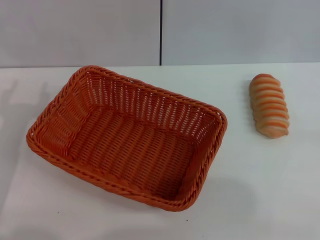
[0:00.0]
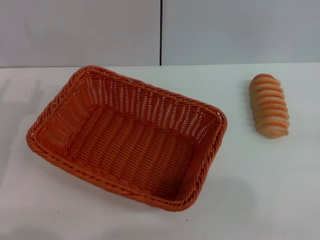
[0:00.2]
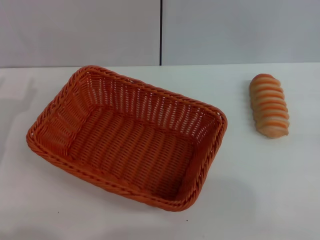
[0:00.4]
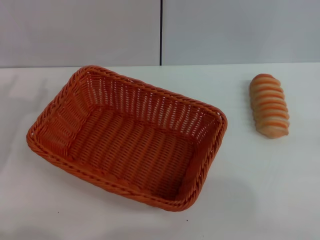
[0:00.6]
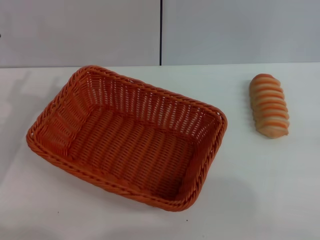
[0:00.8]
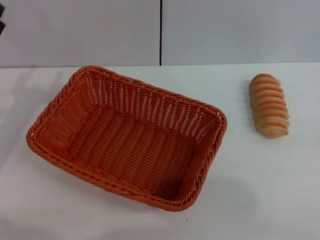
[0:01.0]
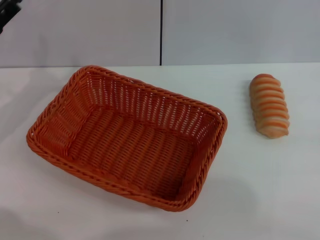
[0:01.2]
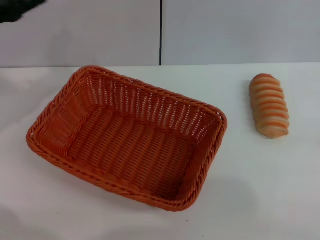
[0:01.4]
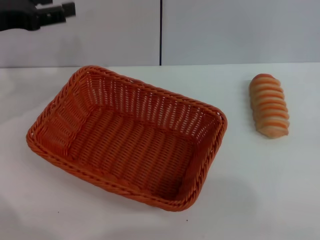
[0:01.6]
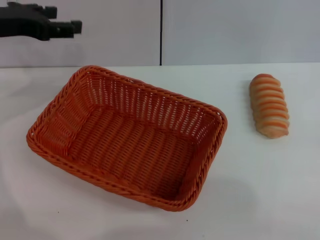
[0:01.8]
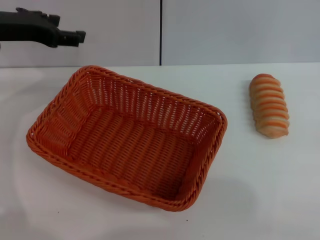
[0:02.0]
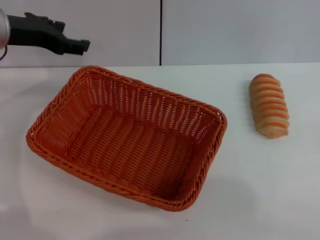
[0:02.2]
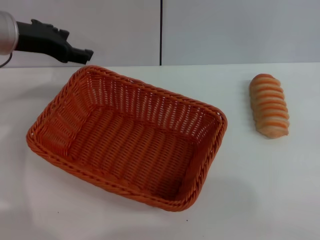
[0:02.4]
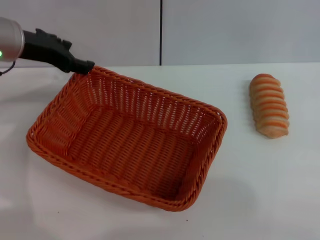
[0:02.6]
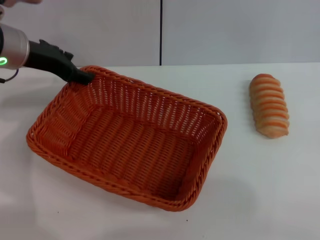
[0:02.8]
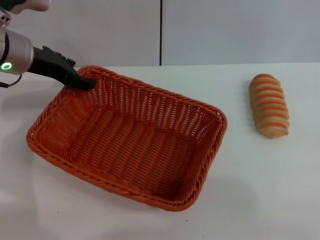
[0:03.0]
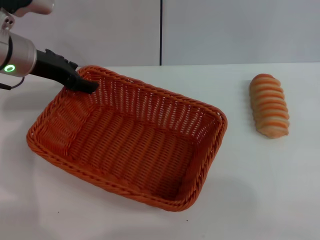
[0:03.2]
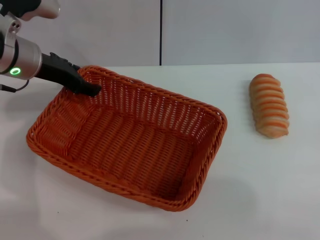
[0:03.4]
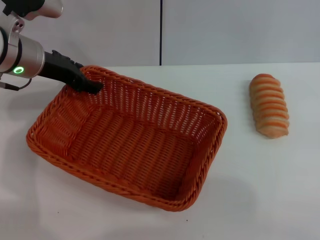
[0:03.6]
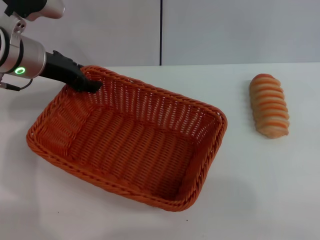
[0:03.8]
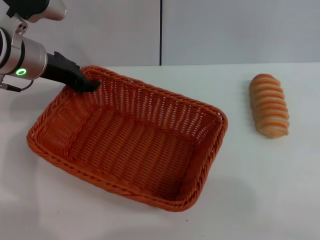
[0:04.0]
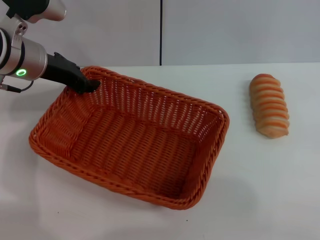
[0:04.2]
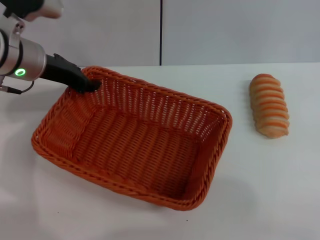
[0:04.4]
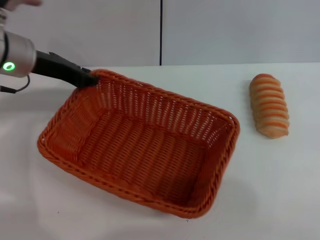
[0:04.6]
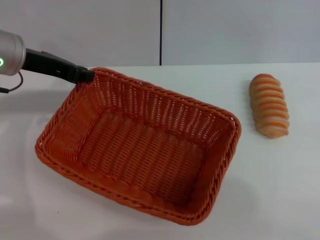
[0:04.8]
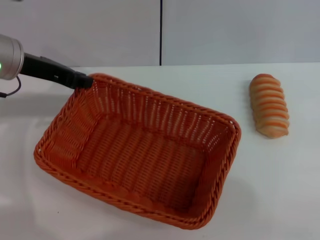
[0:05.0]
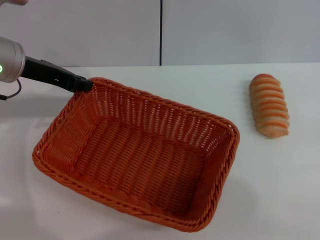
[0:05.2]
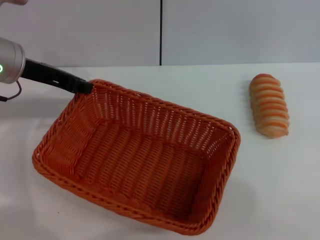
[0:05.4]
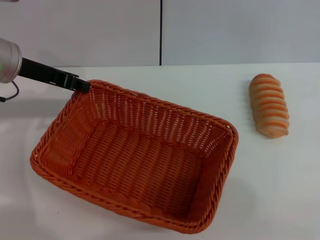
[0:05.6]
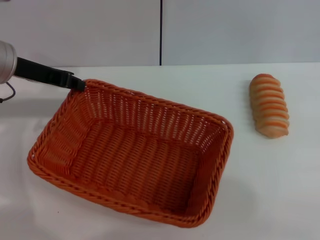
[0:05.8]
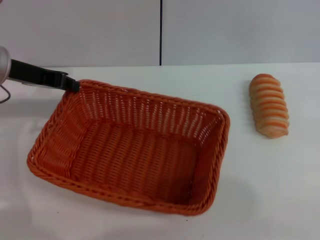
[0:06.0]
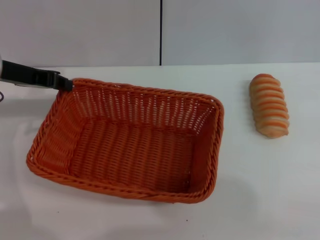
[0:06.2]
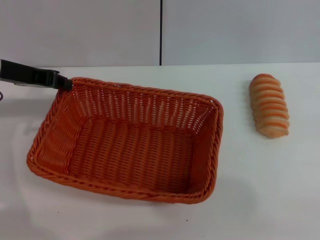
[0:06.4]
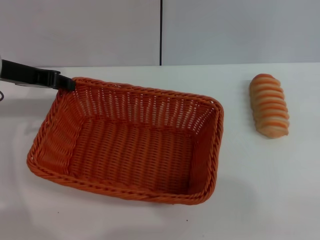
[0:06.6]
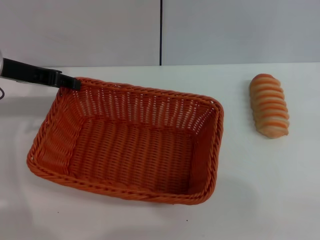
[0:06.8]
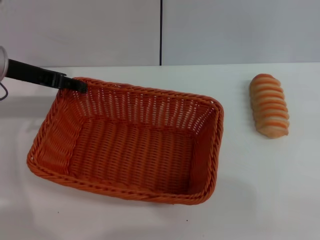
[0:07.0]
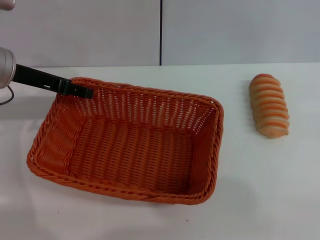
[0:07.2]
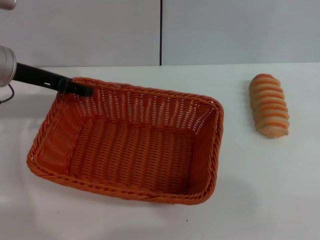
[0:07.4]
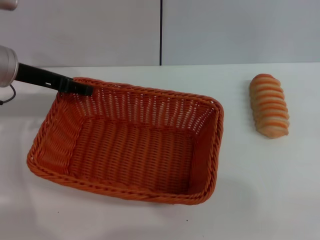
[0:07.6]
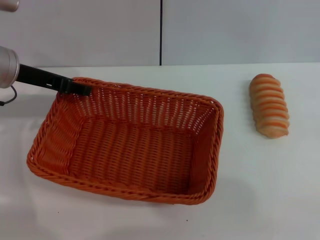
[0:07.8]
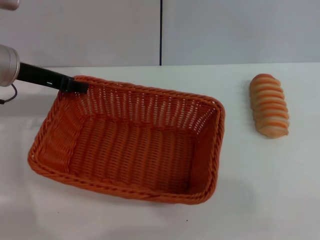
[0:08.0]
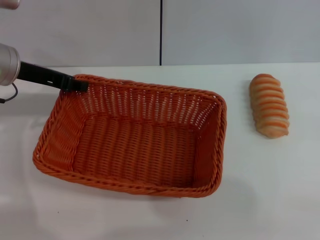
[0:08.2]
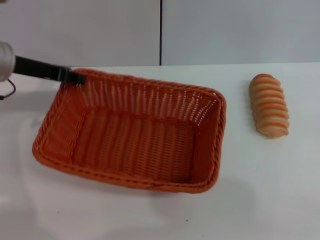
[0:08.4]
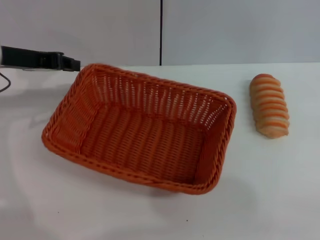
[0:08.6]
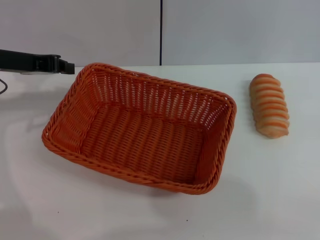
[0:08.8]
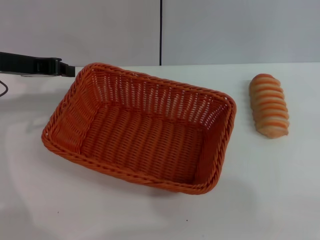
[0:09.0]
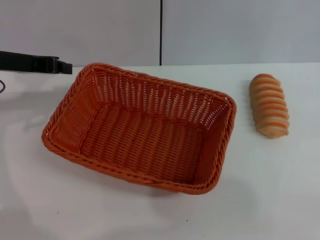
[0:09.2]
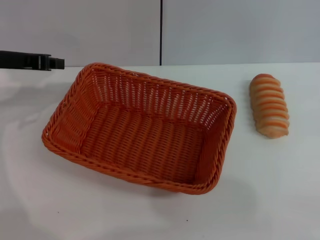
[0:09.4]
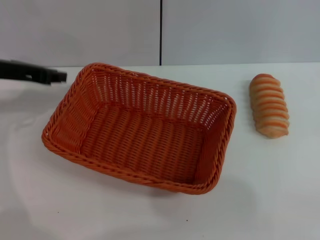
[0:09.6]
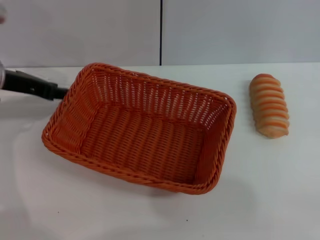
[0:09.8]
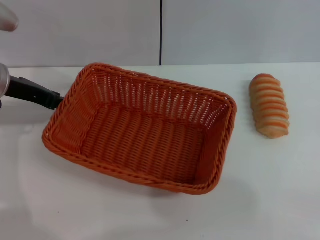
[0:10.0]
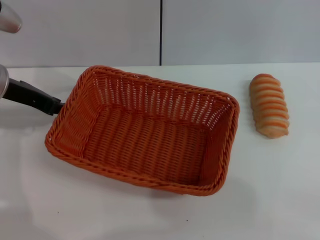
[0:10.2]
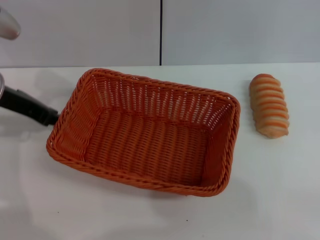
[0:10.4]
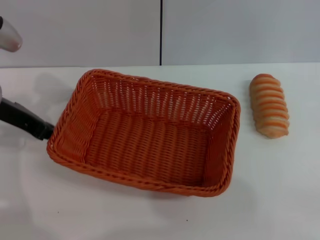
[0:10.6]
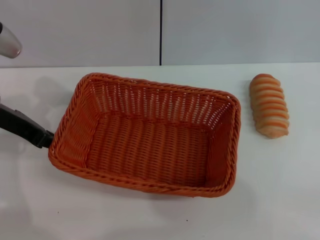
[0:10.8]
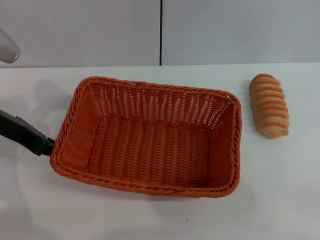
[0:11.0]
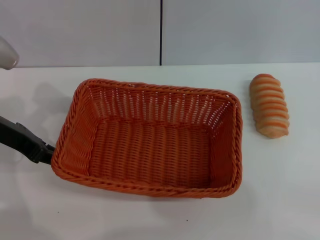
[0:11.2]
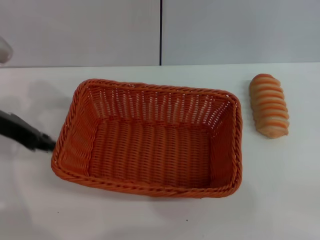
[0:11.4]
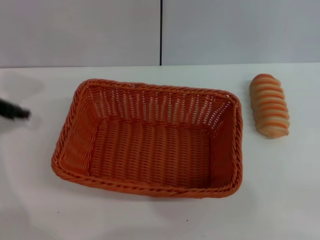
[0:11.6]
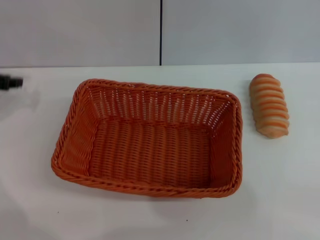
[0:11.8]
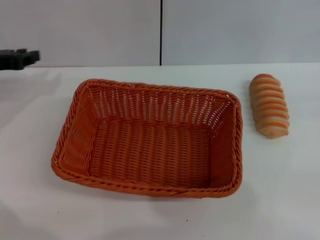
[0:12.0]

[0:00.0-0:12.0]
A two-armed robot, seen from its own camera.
Step, 0:00.0 to 0:11.2: Move the light basket to the center of view with the left gripper.
0:00.0 to 0:01.6: The left gripper goes some 20 cm upward and forward.
0:01.6 to 0:03.0: The left gripper shifts roughly 5 cm to the right.
0:03.0 to 0:04.4: The left gripper closes up.
0:04.4 to 0:06.0: The left gripper shifts by approximately 5 cm.
0:06.0 to 0:07.6: The left gripper opens up.
0:07.6 to 0:09.0: The left gripper closes up.
0:10.4 to 0:12.0: The left gripper goes some 5 cm to the left.

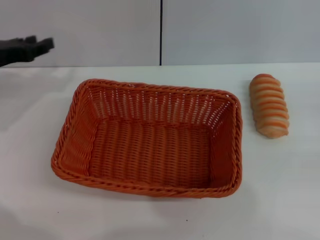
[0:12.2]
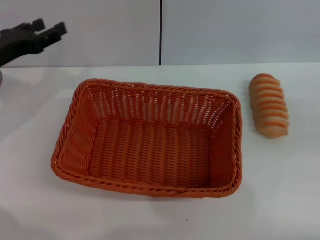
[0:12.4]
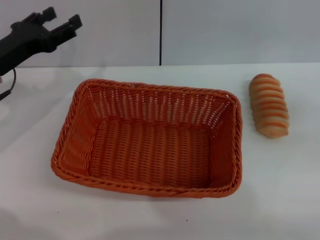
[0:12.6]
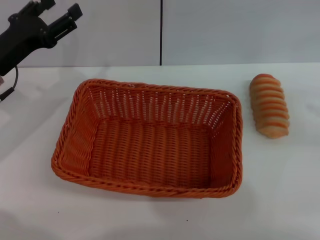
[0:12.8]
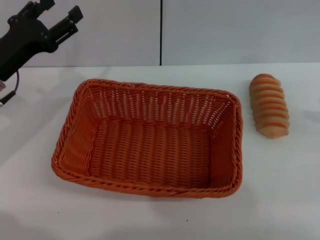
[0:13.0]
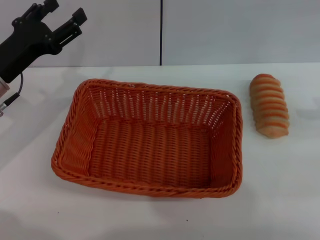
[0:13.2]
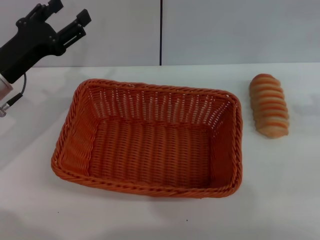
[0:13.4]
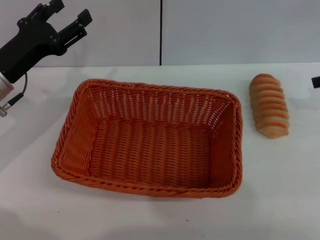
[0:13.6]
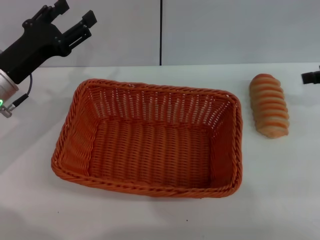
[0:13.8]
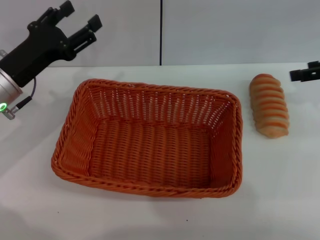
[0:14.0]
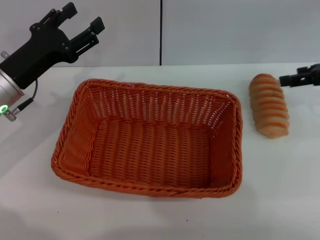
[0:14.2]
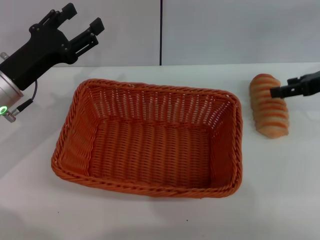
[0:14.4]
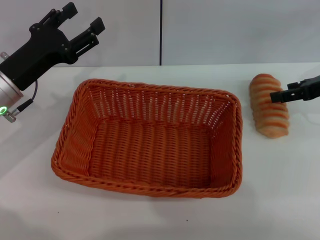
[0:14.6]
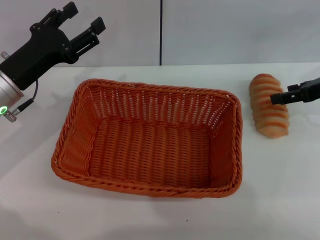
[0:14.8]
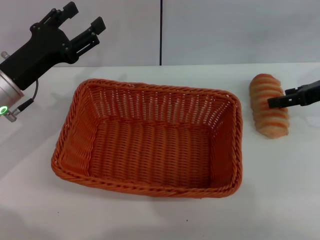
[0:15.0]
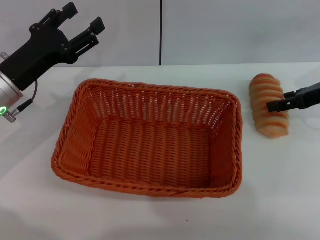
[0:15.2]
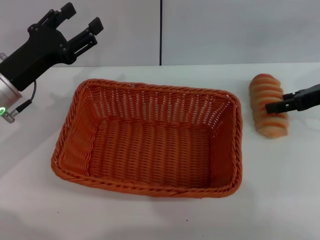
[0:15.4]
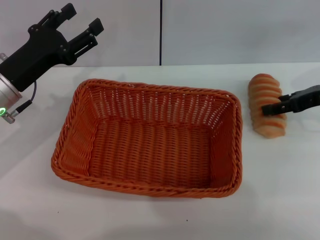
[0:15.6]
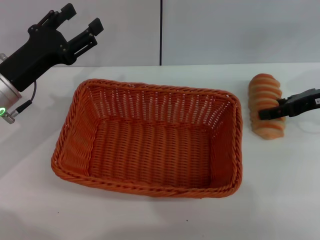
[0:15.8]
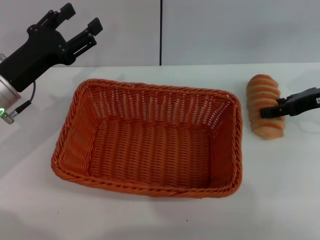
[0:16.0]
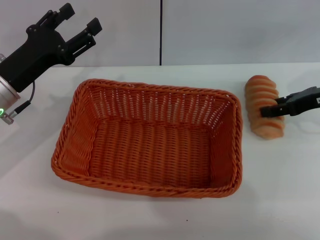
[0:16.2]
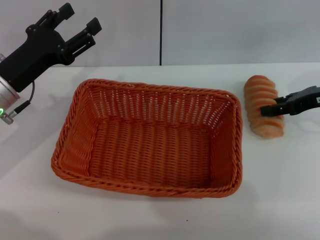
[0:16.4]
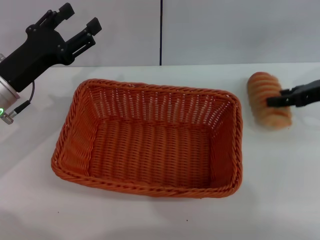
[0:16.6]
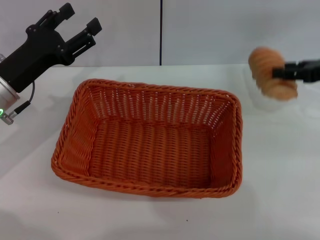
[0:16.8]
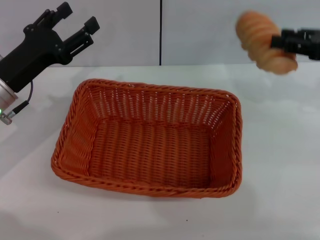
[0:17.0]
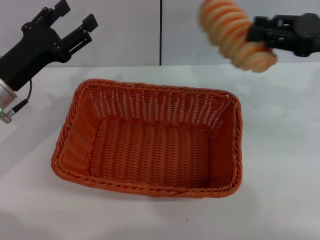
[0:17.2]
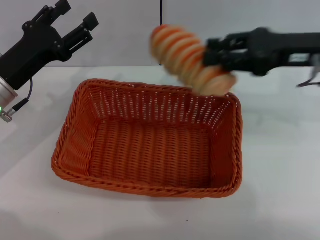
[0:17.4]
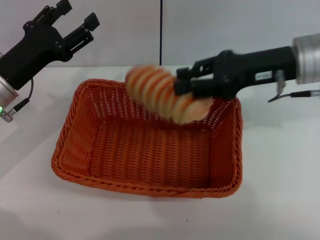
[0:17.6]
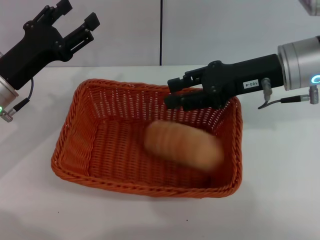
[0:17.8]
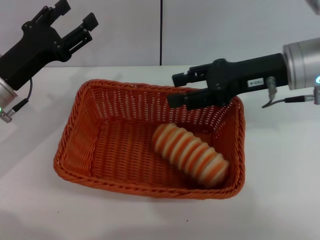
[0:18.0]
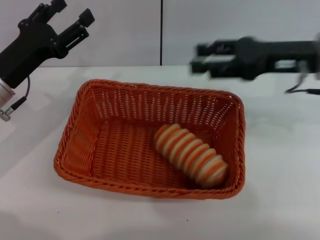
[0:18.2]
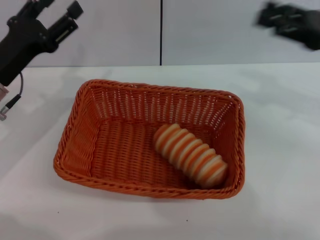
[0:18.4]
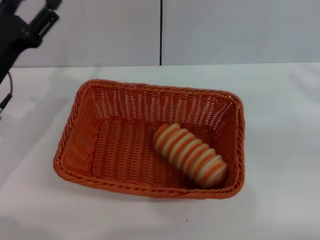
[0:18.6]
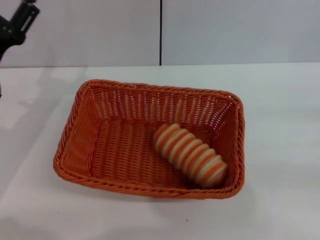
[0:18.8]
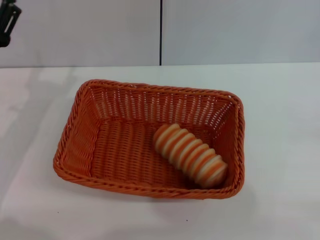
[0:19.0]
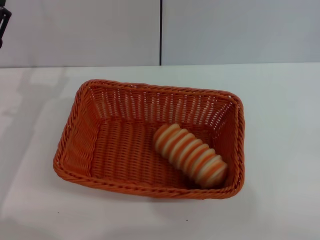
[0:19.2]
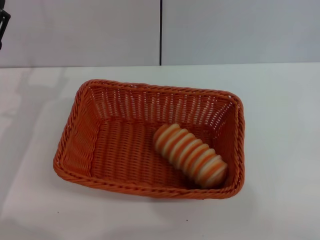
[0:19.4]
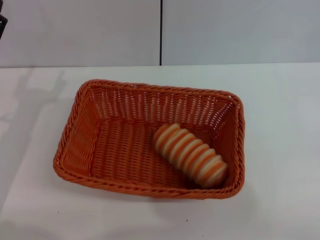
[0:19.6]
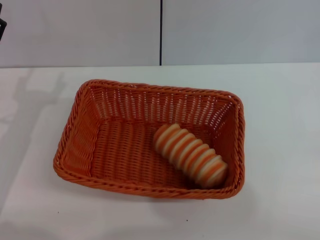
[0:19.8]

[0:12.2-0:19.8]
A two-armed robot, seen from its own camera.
Step, 0:12.2 to 0:16.6: Pick up the long bread with the right gripper.
Step, 0:16.8 to 0:17.8: Place the long bread into the dark basket with the right gripper.
0:12.2 to 0:13.8: The left gripper goes roughly 5 cm to the right, and opens. The right gripper heads forward and to the left, covering about 20 cm.
0:13.8 to 0:15.2: The right gripper goes approximately 5 cm downward.
0:15.2 to 0:16.8: The right gripper closes up.
0:16.8 to 0:18.2: The right gripper heads to the left, covering about 10 cm, and opens.
0:18.2 to 0:19.8: The right gripper is displaced to the right, backward and downward by roughly 30 cm, while the left gripper goes some 5 cm backward.

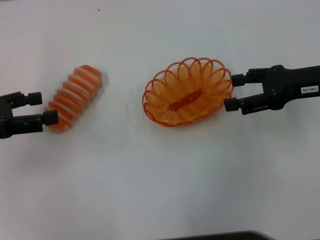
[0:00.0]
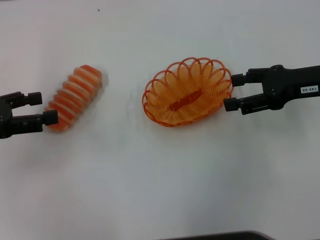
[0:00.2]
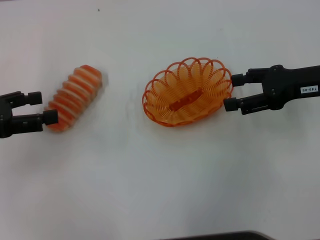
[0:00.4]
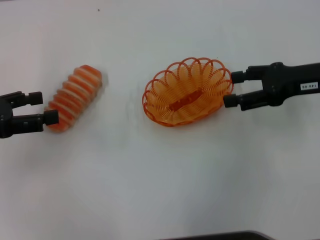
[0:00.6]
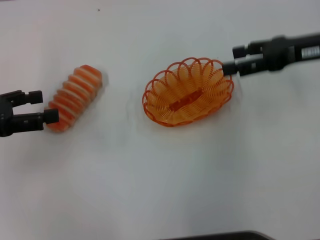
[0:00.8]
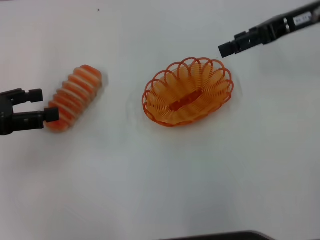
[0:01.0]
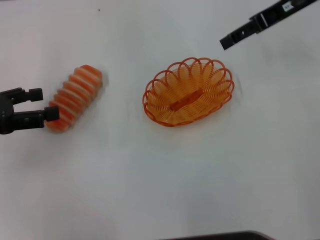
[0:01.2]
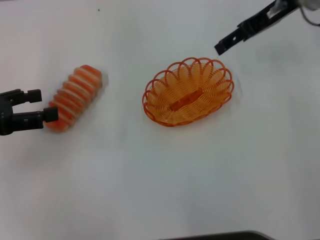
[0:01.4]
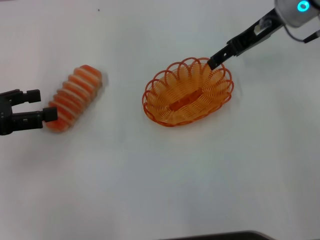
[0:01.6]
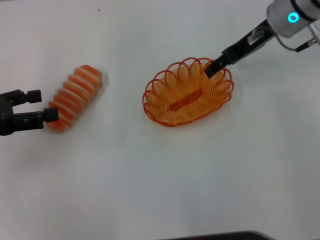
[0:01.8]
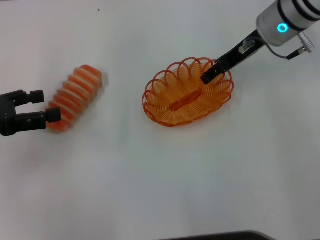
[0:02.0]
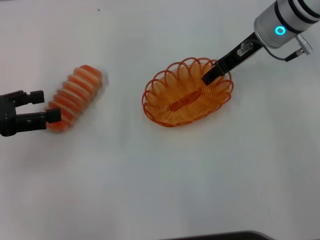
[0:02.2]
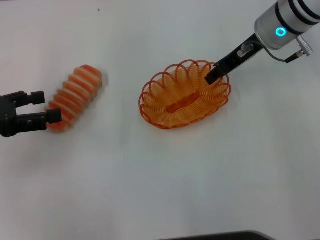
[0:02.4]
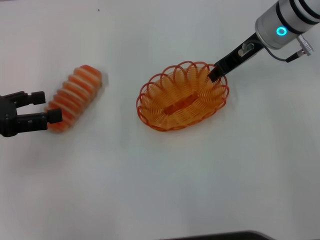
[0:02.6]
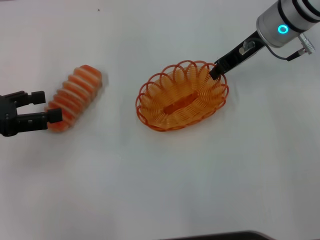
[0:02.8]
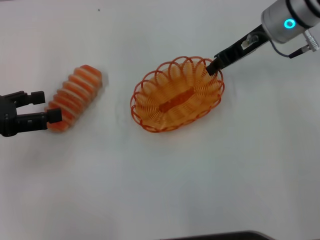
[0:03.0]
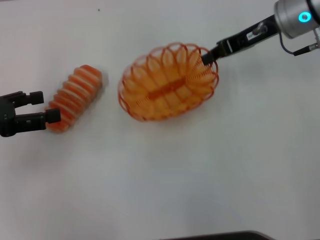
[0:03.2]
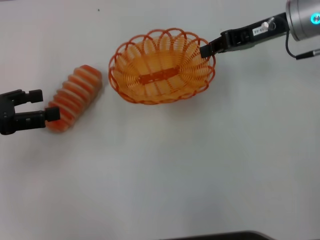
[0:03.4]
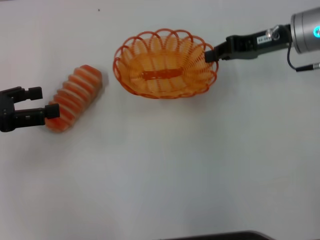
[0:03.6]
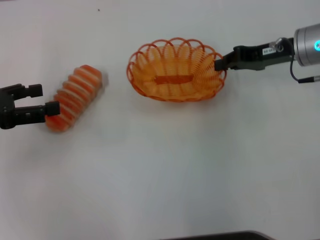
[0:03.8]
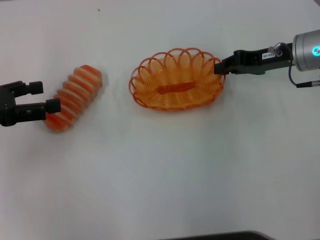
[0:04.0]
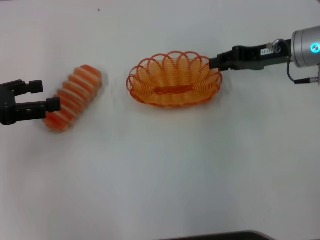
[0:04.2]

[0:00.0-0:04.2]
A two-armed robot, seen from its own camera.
Step, 0:00.0 to 0:03.2: Pick up the basket with the right gripper.
Step, 0:03.4 to 0:04.2: Place the basket in the center of view with the right gripper.
0:00.0 to 0:01.4: The right gripper heads forward, upward and to the left, covering about 15 cm.
0:01.4 to 0:02.8: The right gripper heads downward, covering approximately 5 cm, and closes up.
0:02.8 to 0:04.2: The right gripper heads to the right, covering about 5 cm.
